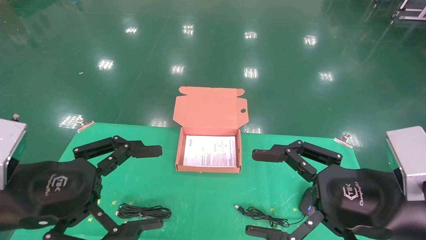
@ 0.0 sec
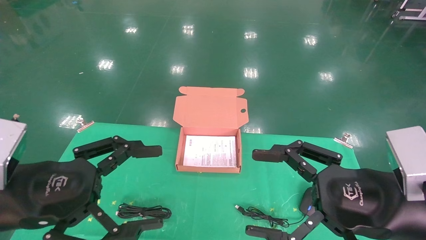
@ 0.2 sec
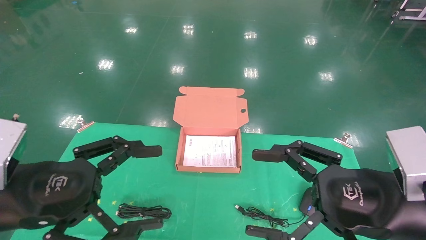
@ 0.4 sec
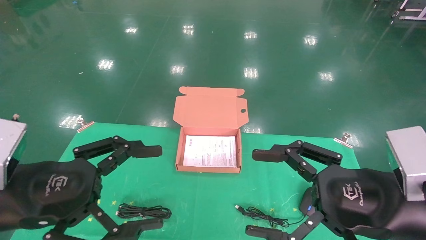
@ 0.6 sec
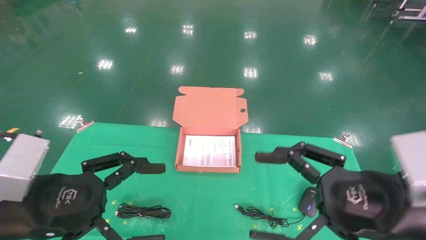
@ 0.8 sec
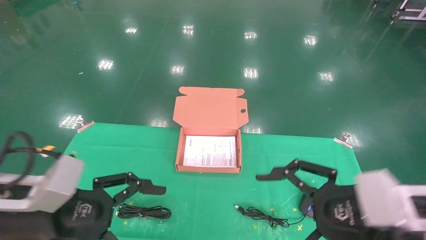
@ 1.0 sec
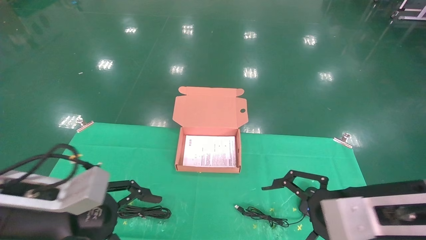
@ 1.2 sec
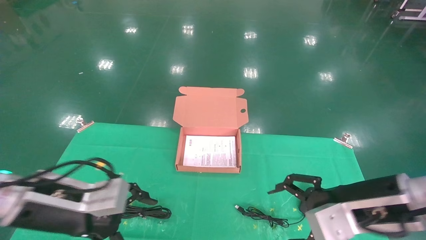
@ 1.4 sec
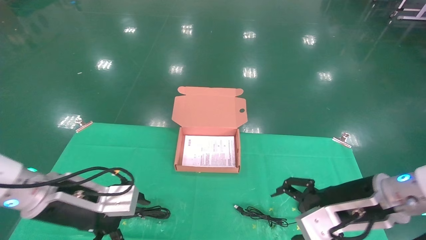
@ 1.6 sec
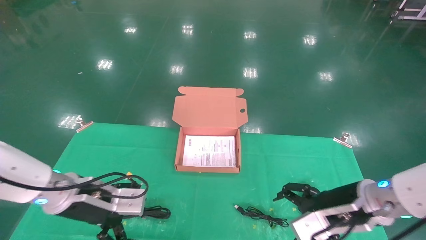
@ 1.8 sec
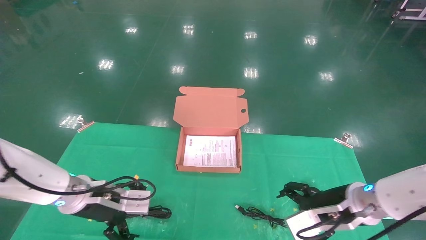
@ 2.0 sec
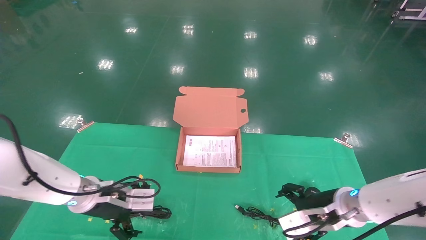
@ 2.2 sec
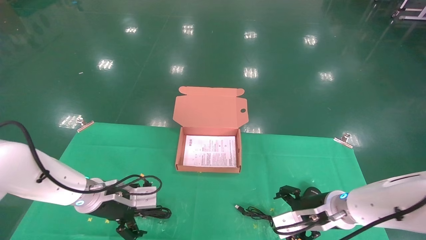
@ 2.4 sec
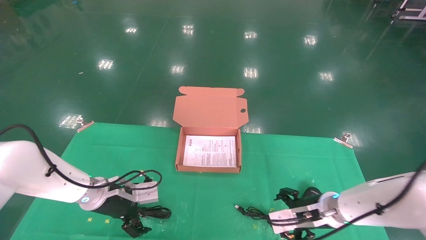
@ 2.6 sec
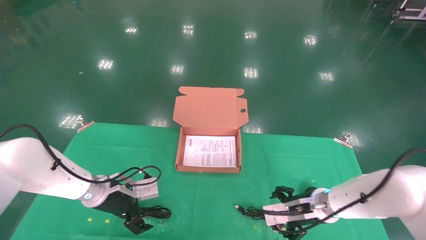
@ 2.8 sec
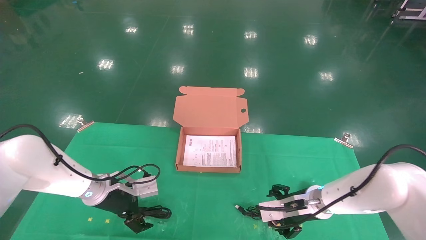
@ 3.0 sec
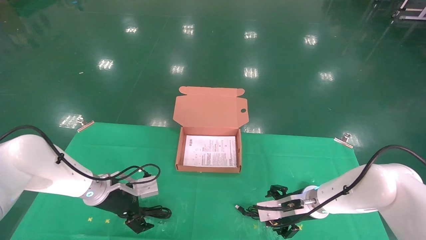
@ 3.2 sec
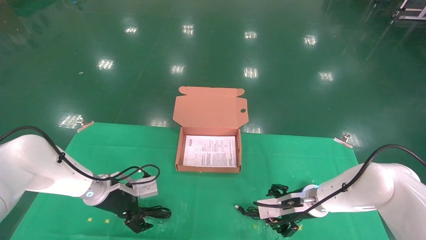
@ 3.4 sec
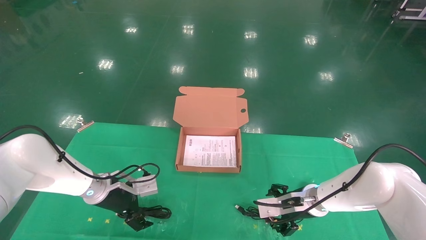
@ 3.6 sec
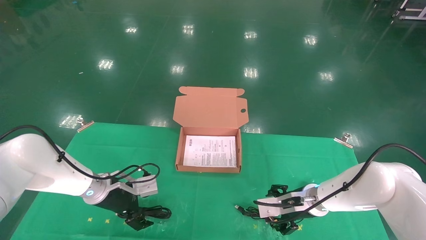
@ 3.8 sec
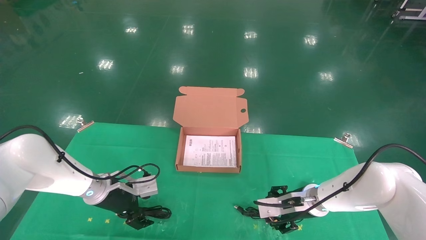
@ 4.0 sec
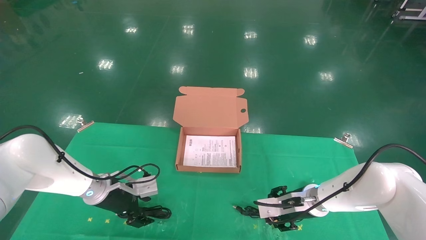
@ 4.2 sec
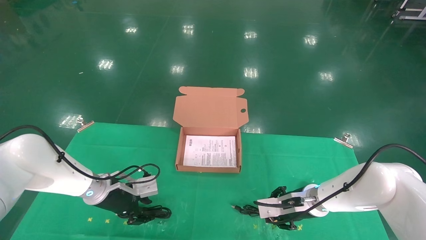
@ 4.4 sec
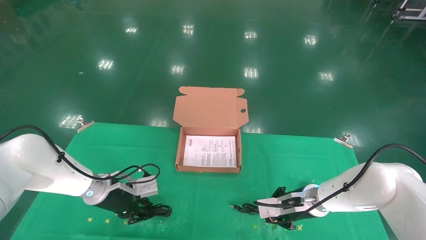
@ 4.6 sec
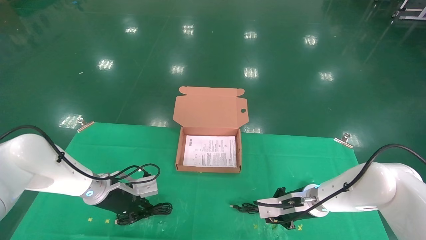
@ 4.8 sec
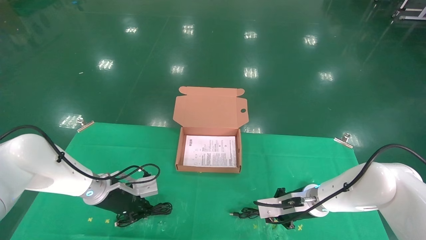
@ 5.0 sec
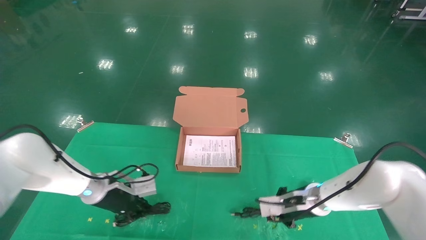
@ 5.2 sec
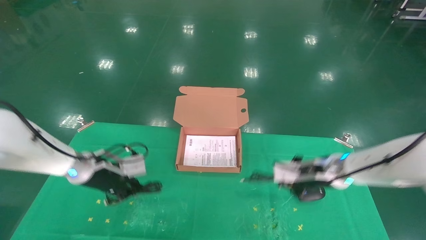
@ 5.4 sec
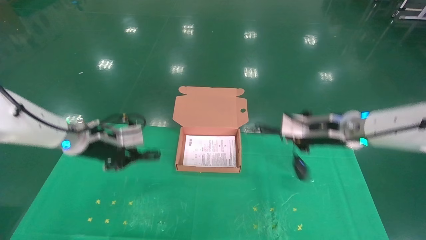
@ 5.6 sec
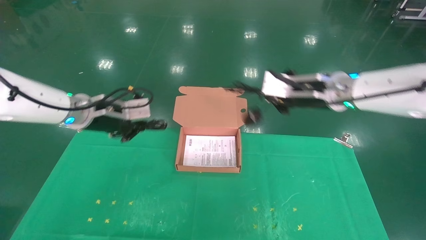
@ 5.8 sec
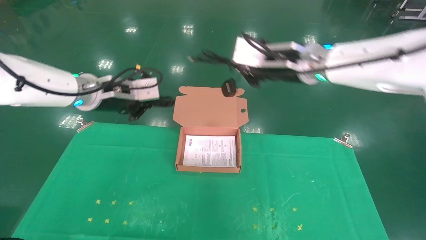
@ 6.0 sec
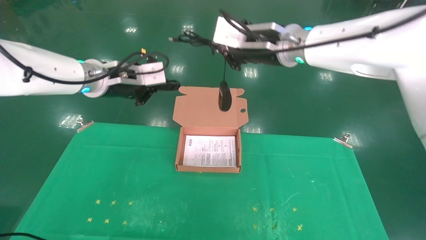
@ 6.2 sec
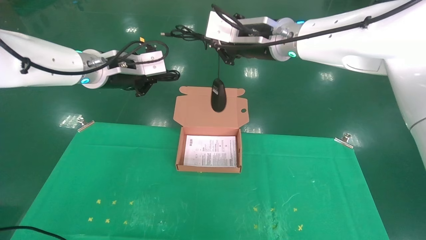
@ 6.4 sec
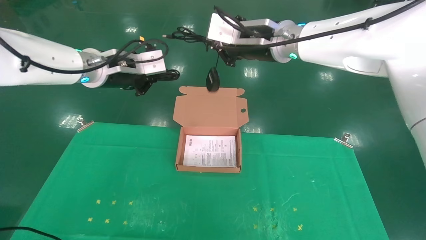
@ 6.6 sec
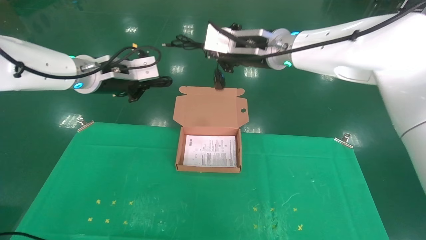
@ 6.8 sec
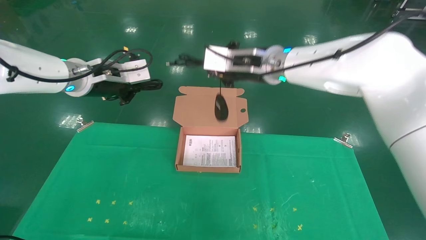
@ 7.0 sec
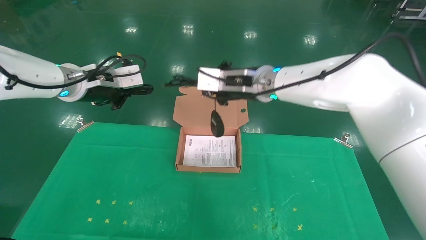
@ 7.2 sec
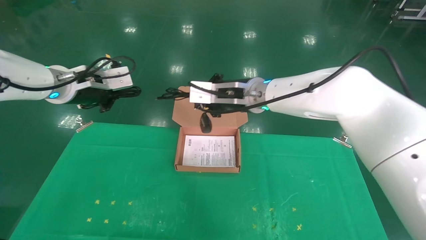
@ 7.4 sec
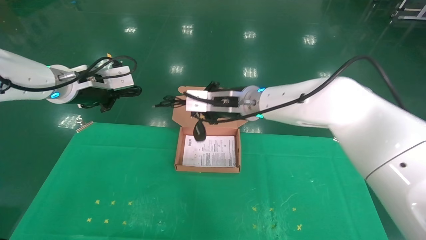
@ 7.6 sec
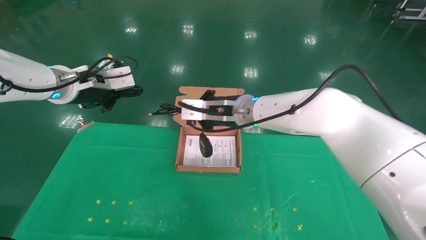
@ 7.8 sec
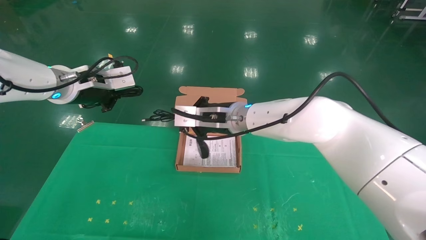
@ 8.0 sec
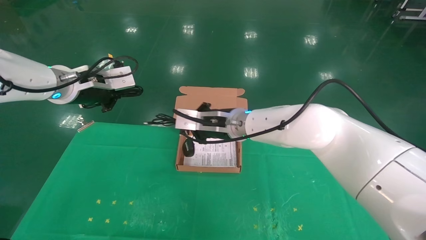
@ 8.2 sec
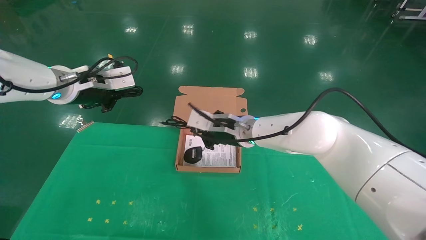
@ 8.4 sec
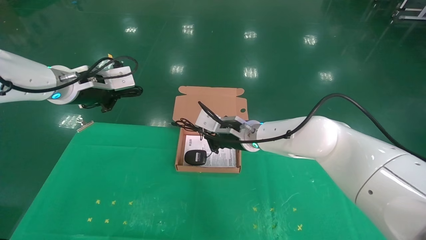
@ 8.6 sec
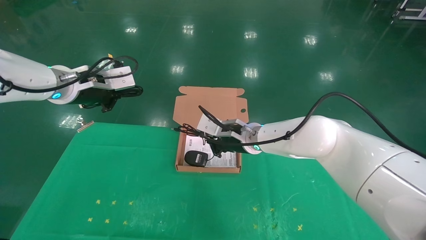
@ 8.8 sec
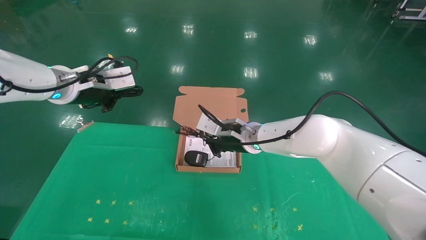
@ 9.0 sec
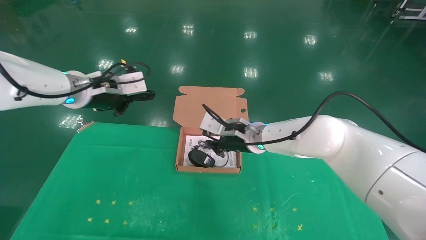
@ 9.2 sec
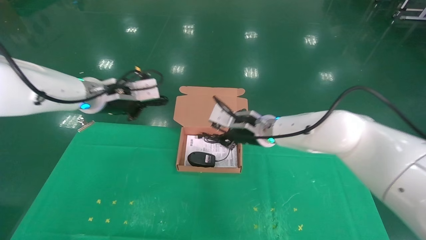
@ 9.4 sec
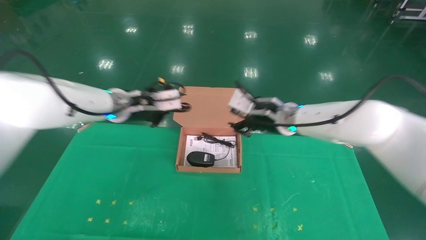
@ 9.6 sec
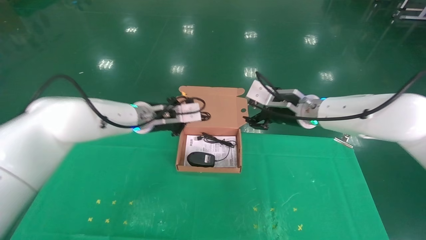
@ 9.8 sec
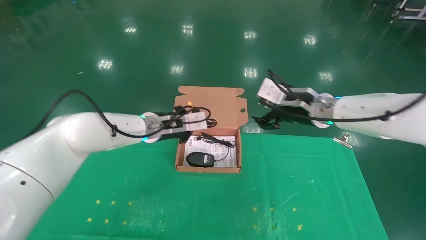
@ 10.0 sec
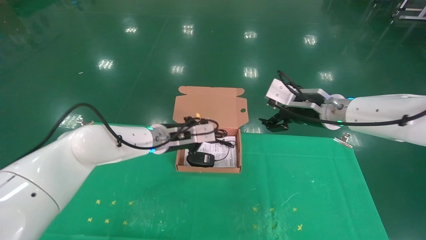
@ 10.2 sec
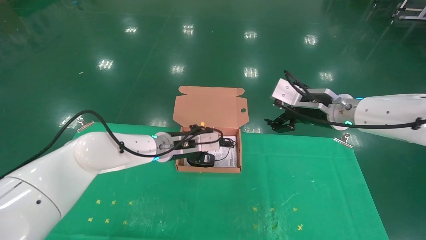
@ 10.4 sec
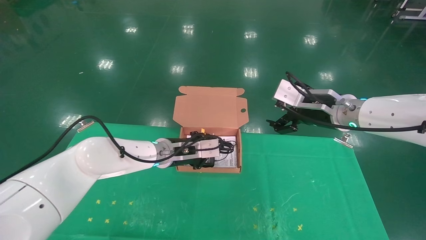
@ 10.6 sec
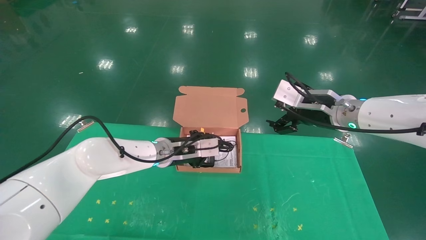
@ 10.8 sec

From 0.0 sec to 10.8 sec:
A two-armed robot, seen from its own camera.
Task of the whole recording: grasp data cable left put into box grasp mouse right put into box.
Step, from 1.0 sec to 6.0 sec: Grab and pick up both the mouse and power cord from the accessory packaging area at the same time.
From 0.0 sec to 1.6 sec: Both grippers move forward and downward, about 10 cm.
From 1.6 sec to 3.0 sec: Both grippers travel together forward and downward, some 15 cm.
From 3.0 sec to 4.6 sec: The left gripper closes up; the right gripper closes.
From 4.6 sec to 6.2 sec: The two grippers go about 30 cm upward. The right gripper closes up.
From 6.2 sec to 7.8 sec: The left gripper shifts roughly 5 cm to the left. Meanwhile the right gripper shifts some 15 cm downward and to the left.
From 7.8 sec to 9.2 sec: The right gripper is displaced downward by approximately 5 cm.
From 9.2 sec to 10.8 sec: The right gripper heads to the right and upward, covering approximately 15 cm, and opens up, while the left gripper moves downward and to the right, some 20 cm.

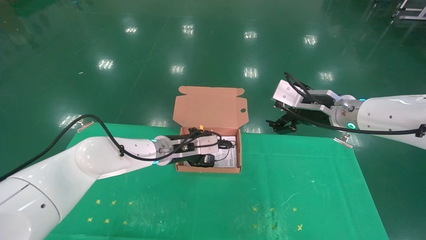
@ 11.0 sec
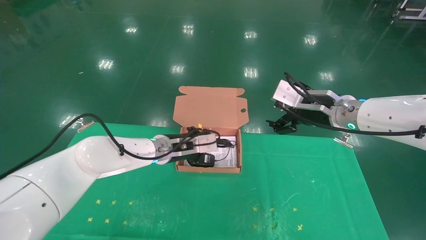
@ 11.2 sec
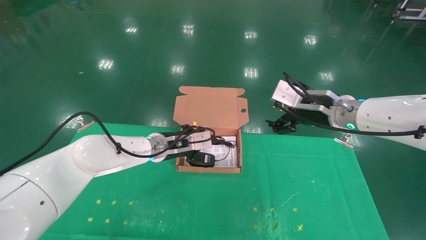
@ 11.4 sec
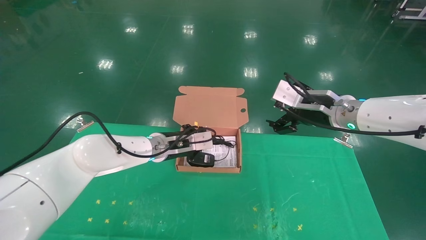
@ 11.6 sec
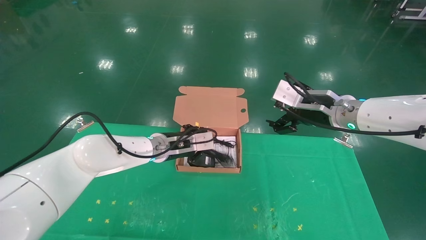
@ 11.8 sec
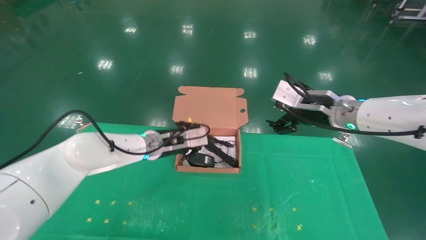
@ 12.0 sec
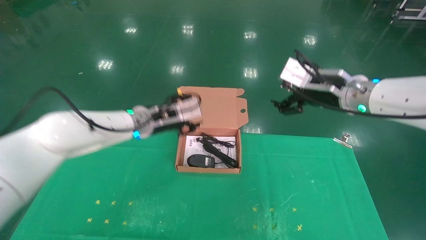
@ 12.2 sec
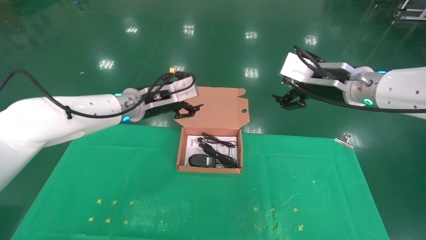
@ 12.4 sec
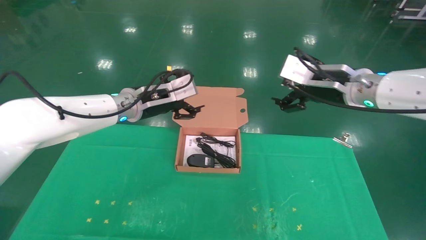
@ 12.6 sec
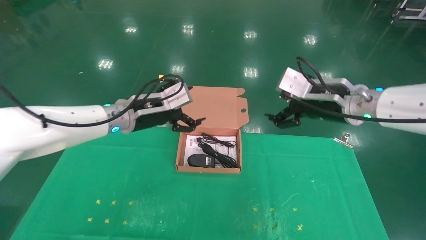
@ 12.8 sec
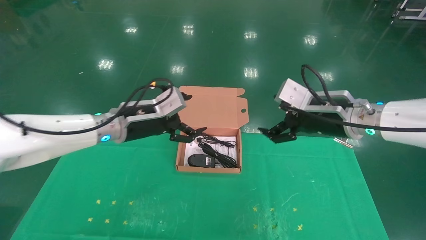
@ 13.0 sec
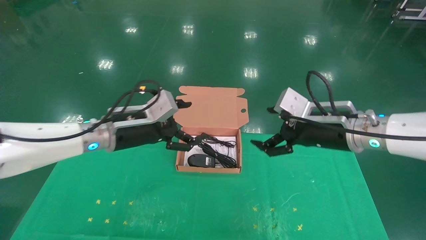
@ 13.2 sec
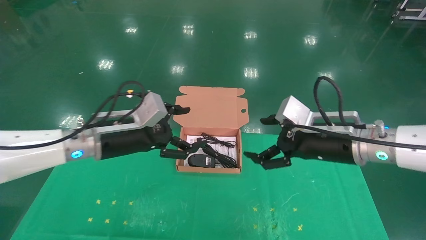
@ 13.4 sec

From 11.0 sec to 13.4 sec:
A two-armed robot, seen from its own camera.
Task of the whole recording: grasp data cable left put into box grasp mouse right put into box.
From 11.0 sec to 12.2 sec: The left gripper shifts some 5 cm upward, and opens up.
From 12.2 sec to 13.4 sec: The left gripper moves backward and to the left, roughly 10 cm, and opens its fingers. Meanwhile the right gripper goes roughly 10 cm downward and backward.
